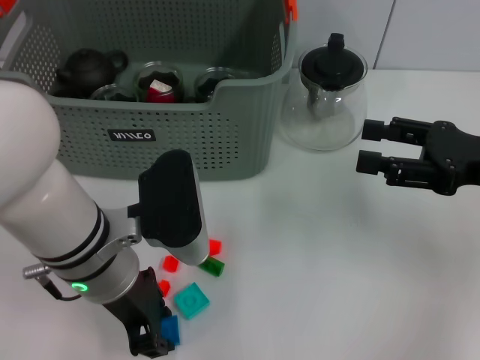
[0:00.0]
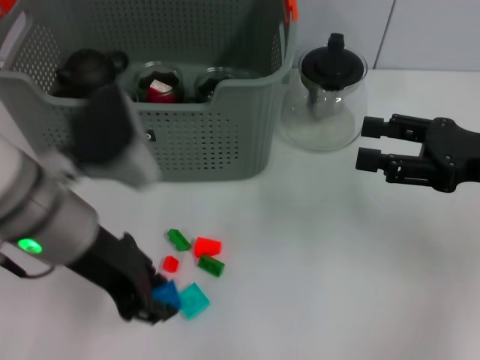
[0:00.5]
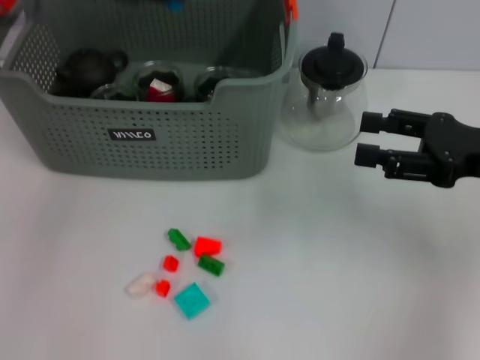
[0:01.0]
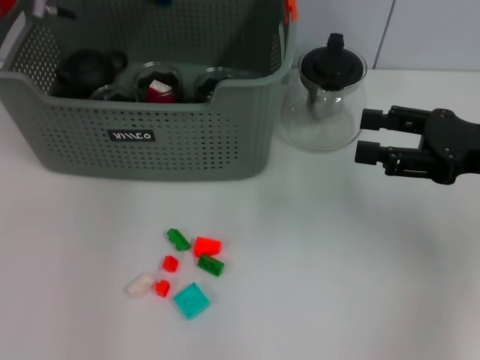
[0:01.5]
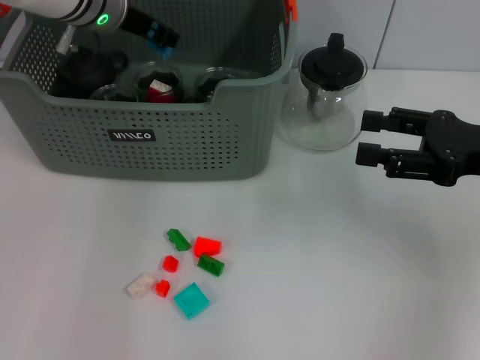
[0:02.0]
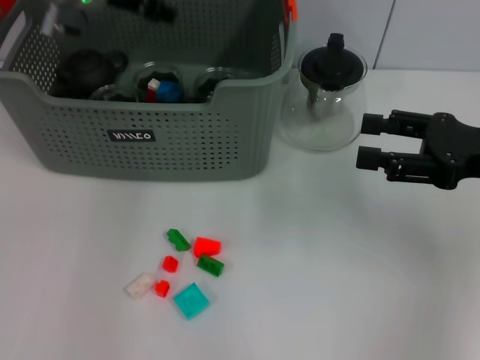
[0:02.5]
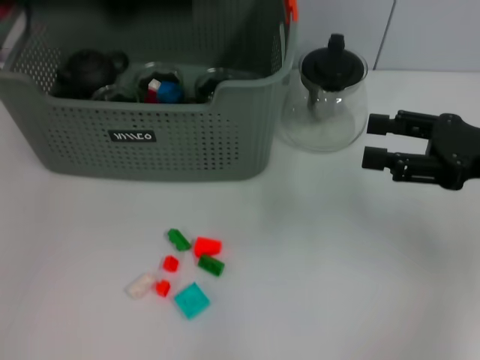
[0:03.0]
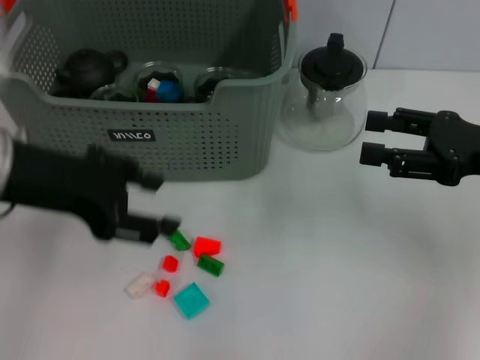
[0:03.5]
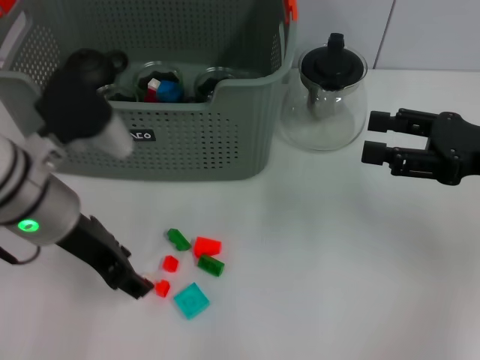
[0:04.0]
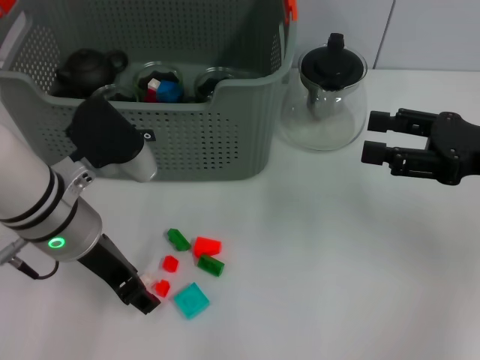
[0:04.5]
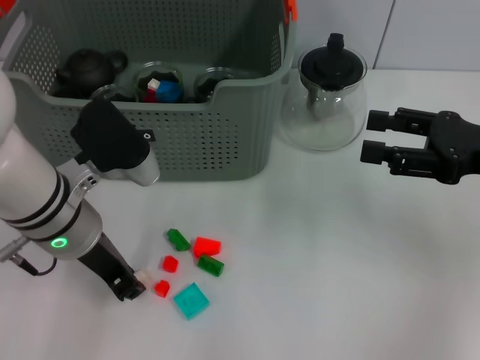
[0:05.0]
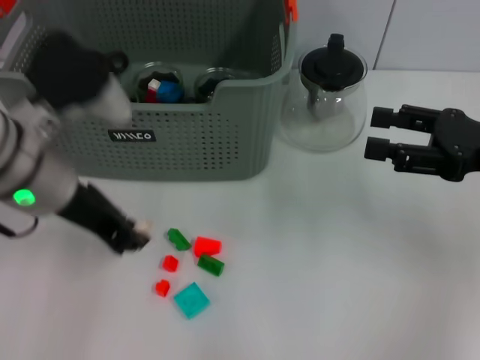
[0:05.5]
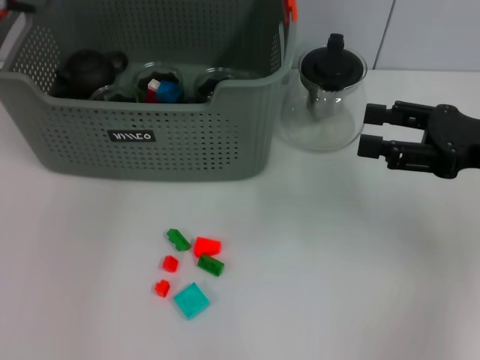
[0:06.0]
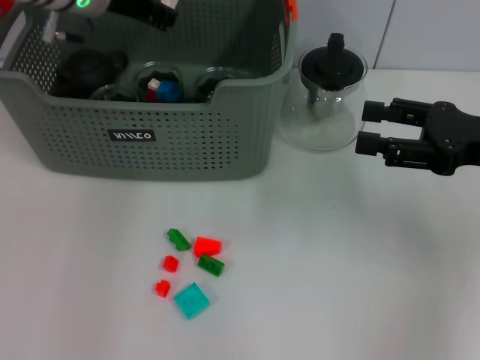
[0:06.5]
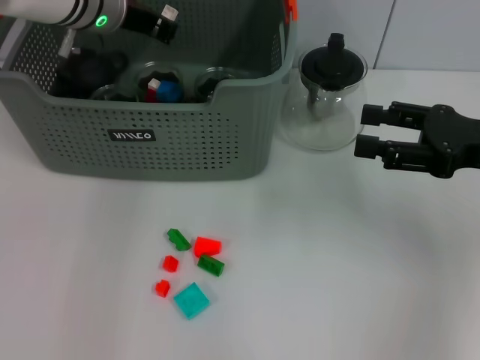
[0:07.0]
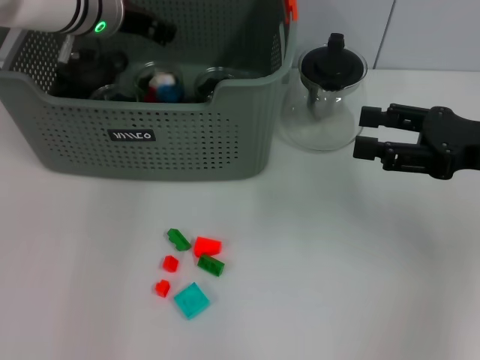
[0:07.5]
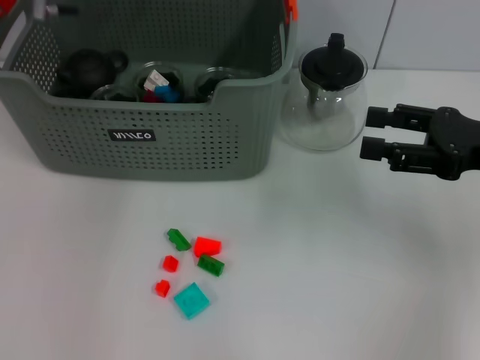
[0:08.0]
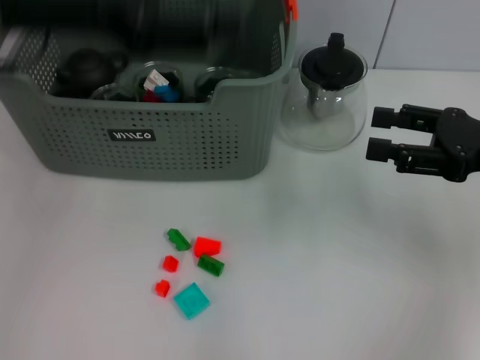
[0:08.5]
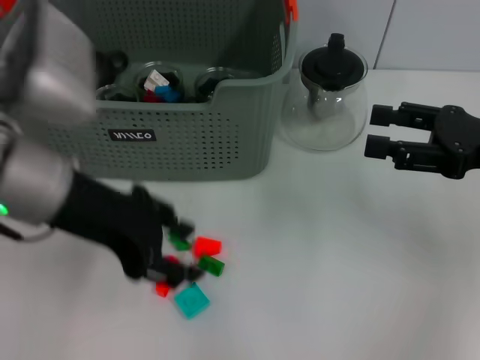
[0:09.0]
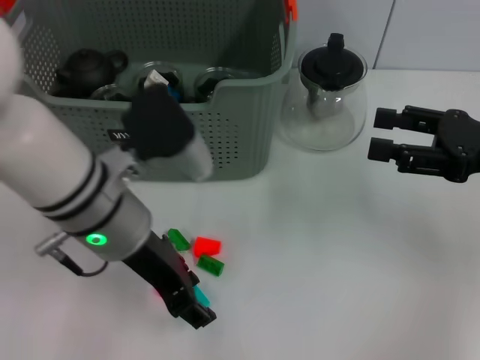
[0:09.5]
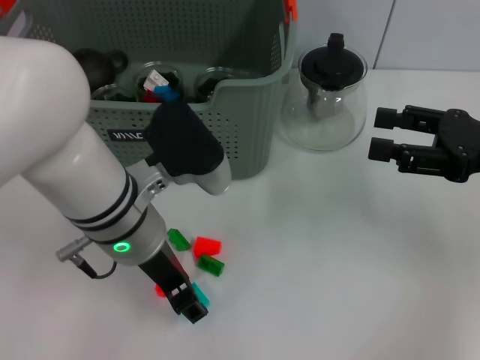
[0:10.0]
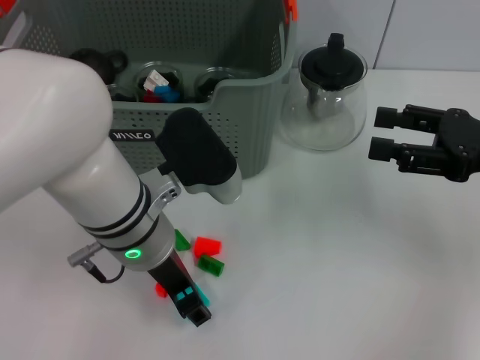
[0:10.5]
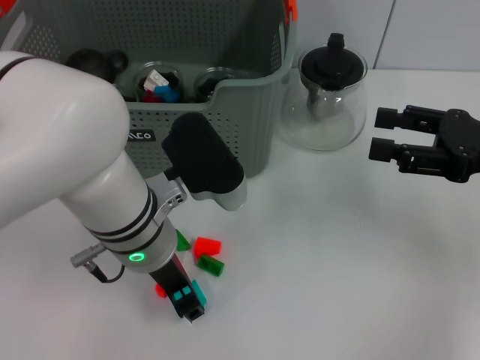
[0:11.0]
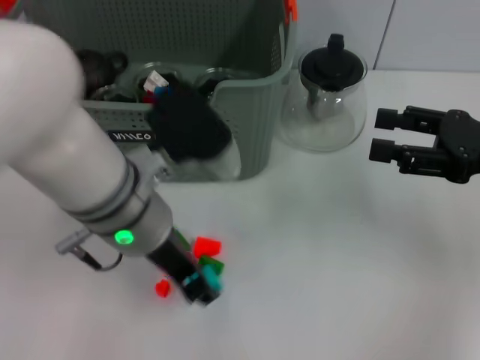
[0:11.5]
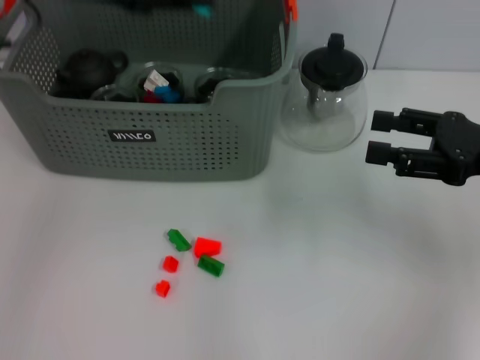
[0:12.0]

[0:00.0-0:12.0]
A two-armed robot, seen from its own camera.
Task of the whole recording: pick up the teacup on the table and place it into the storage bin, pick up the block on the table and place it into the storage bin.
Step, 0:00.5 to 0:02.0: Place the dark blue block in the storage box with left gripper.
Step, 0:02.5 to 0:05.0: Grasp the white block with left gripper.
Step, 0:05.5 to 0:07.5: Place the white block in the storage box with left gripper.
Step, 0:08.0 to 0:11.0: Grasp the light blue block with left gripper.
0:00.0 to 0:02.0: The left gripper goes roughly 20 cm forward.
0:02.0 to 0:04.0: The left gripper heads backward, covering approximately 15 cm.
0:04.0 to 0:06.0: The left gripper moves upward and forward, about 15 cm, and closes its fingers.
0:08.0 to 0:10.0: The left gripper travels backward, downward and to the right by about 20 cm.
0:10.0 to 0:12.0: The left gripper moves upward and to the left, approximately 20 cm.

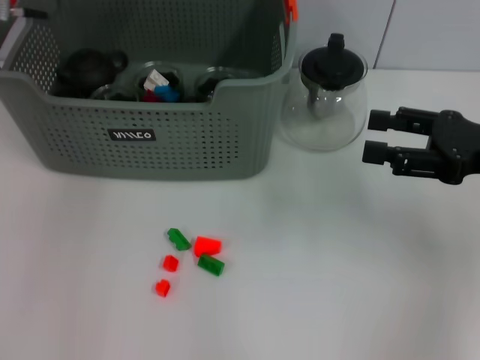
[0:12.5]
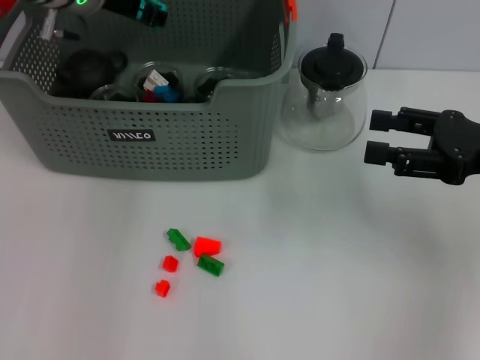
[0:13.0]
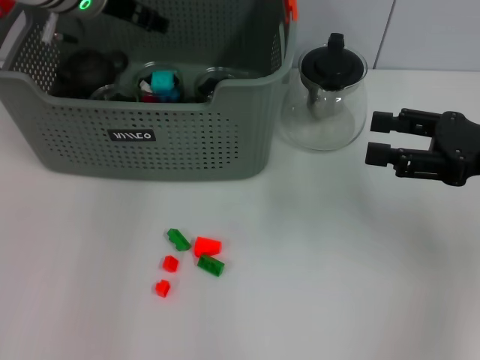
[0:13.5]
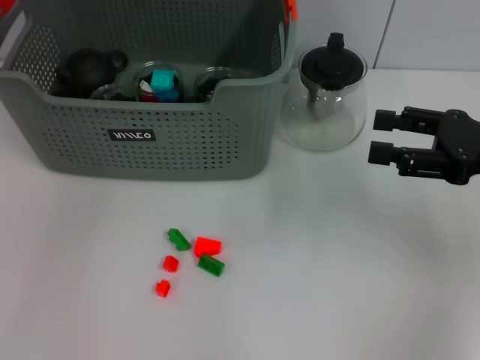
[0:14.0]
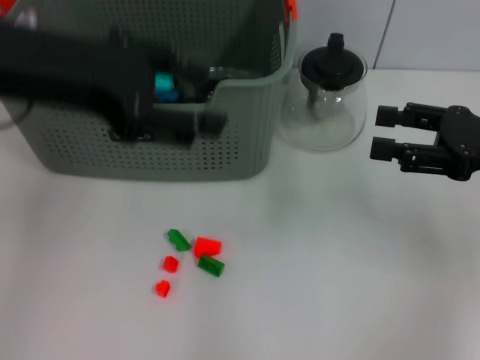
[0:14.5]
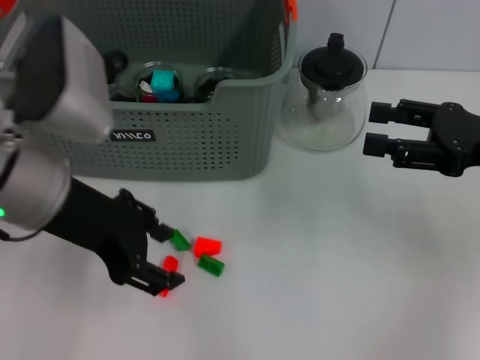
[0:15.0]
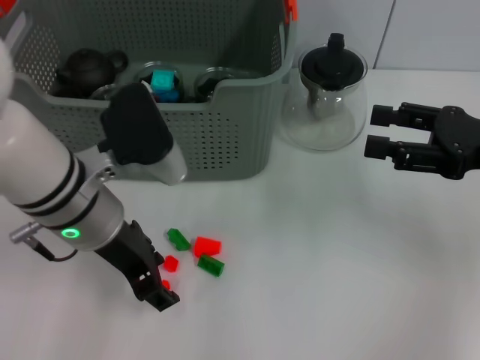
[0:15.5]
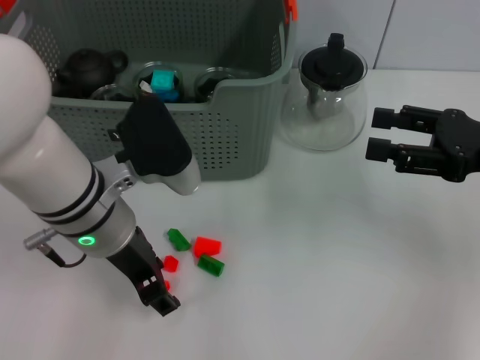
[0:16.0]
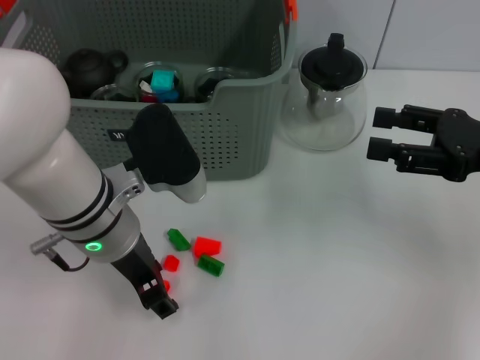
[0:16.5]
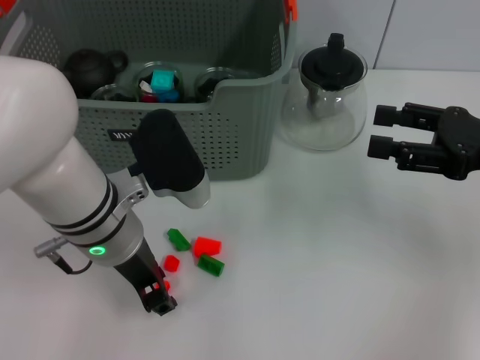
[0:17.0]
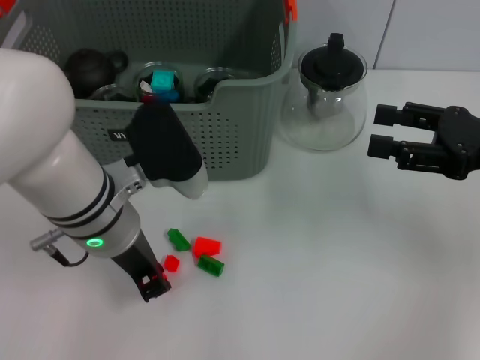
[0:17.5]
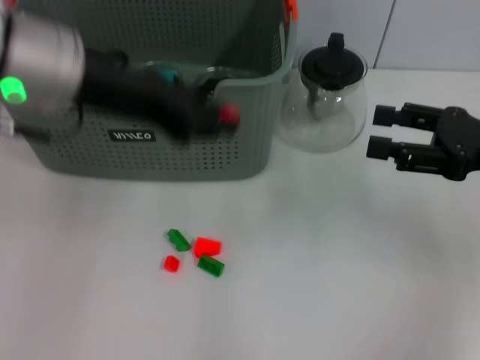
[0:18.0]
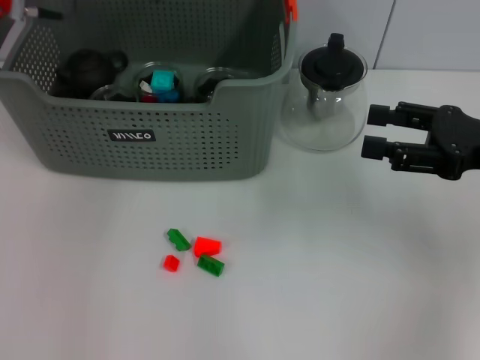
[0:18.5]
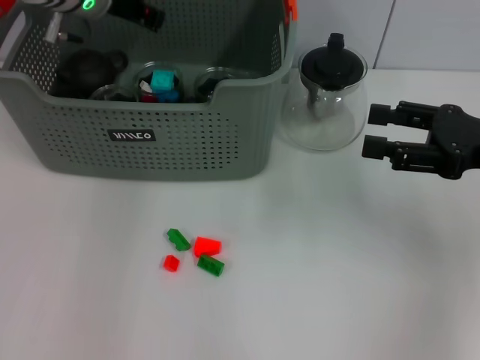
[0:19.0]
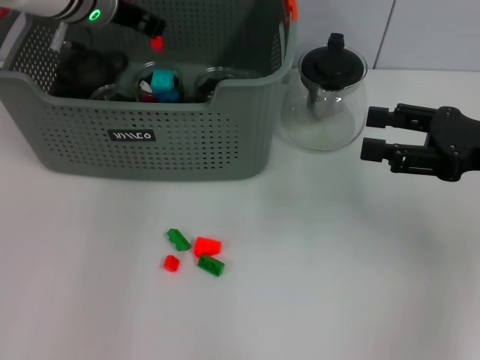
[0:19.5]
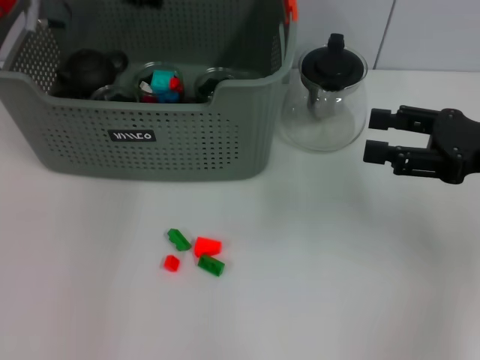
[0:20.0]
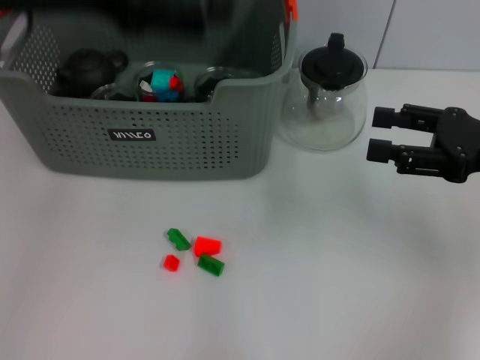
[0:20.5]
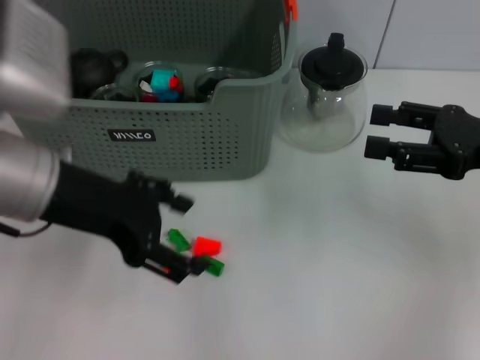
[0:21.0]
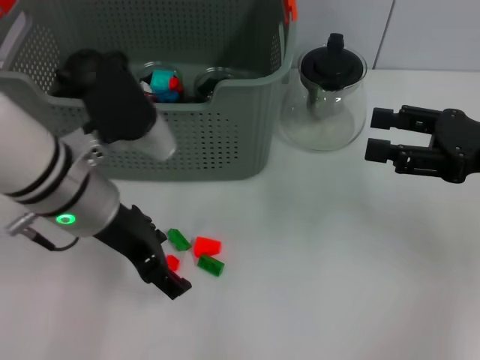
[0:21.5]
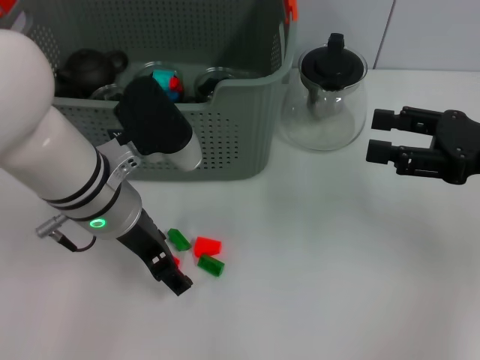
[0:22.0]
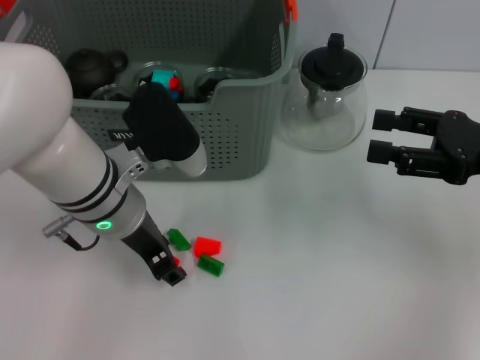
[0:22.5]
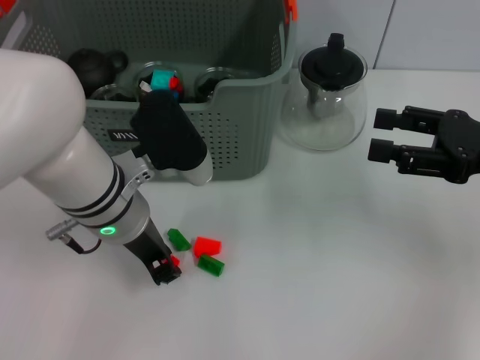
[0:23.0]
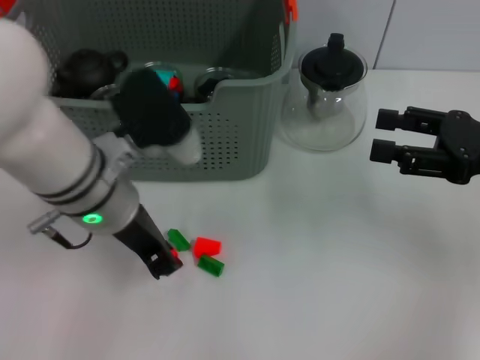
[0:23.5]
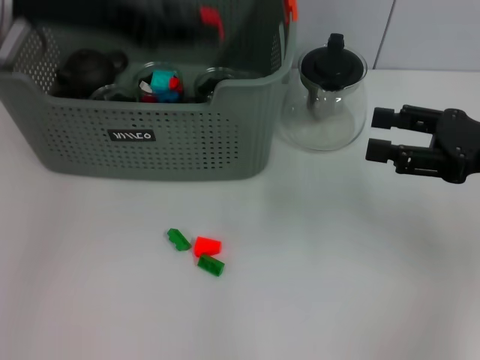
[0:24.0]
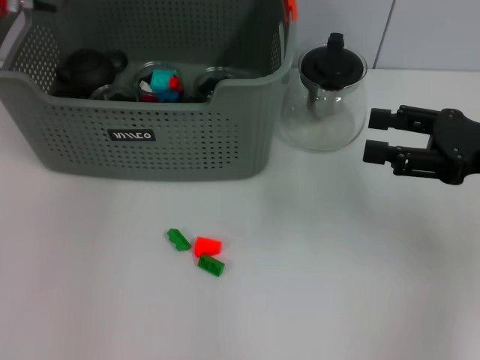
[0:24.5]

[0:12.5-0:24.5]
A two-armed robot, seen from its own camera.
Task of the whole recording: pick up the teacup on the table and place it into the storage bin, pick up the block on the table and place it into the storage bin.
Step, 0:14.0 to 0:17.0: Grasp the orange block with left gripper.
Step, 0:17.5 to 0:19.5: Place the orange block in the storage box with left gripper.
Step, 0:20.0 to 0:23.0: Grasp the orange block with left gripper.
0:12.5 to 0:14.5: The left gripper is displaced backward by about 15 cm.
0:14.5 to 0:16.5: The left gripper is displaced downward and to the right by about 15 cm.
0:16.5 to 0:18.5: The left gripper is displaced forward, upward and to the left by about 20 cm, and closes its fingers.
0:18.5 to 0:20.5: The left gripper travels backward by approximately 10 cm, and opens up.
0:20.5 to 0:22.5: The left gripper shifts some 20 cm downward and to the right.
0:22.5 to 0:24.5: The left gripper heads forward, upward and to the left, covering approximately 20 cm, and closes its fingers.

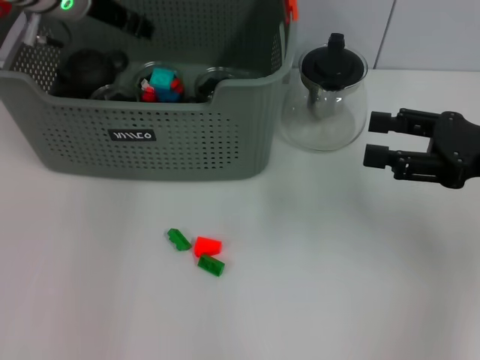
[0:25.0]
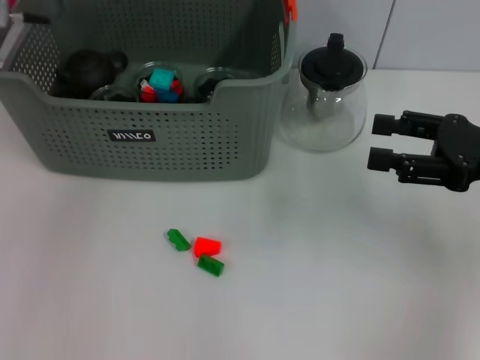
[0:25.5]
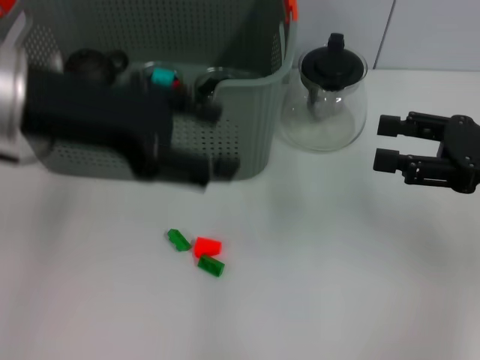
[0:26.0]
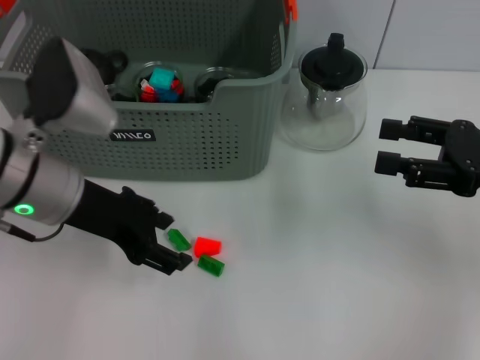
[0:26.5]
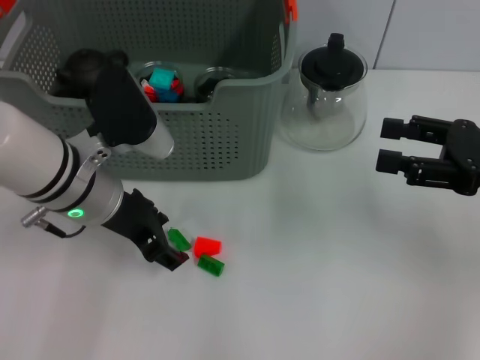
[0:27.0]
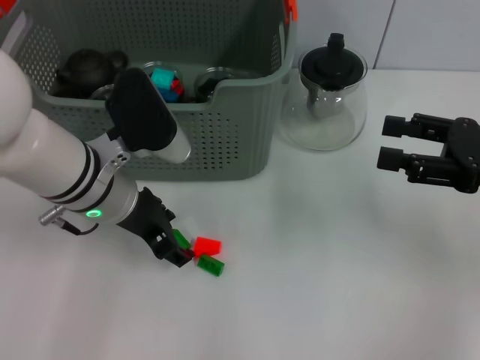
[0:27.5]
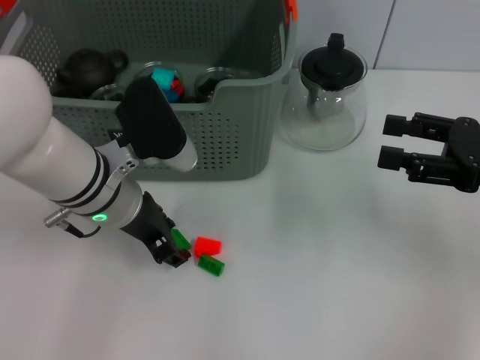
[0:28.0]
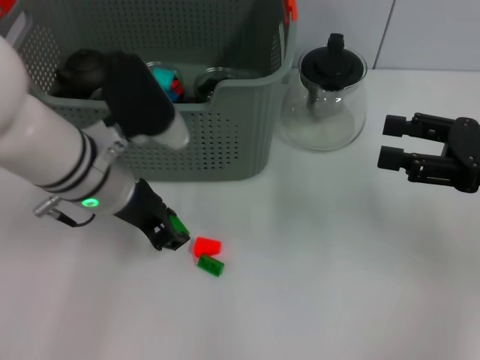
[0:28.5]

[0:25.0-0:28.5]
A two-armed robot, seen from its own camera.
Task of the whole recording: pick up the teacup on the table and place it into the storage bin, pick up the block on the table and place it into the storage bin.
Step, 0:25.5 to 0:28.0: Grasp the green block with left gripper.
0:25.0 to 0:27.0: The left gripper travels backward and downward by roughly 15 cm, and opens its fingers.
0:27.0 to 0:28.5: The grippers make only small movements.
